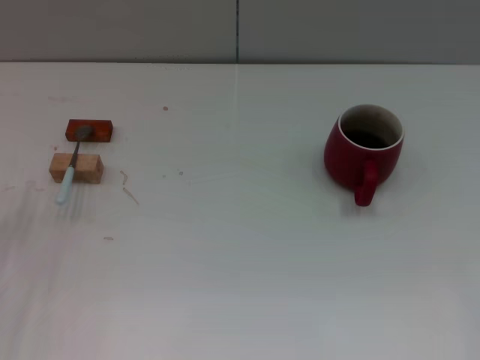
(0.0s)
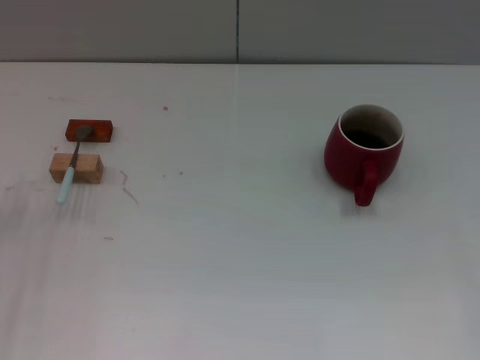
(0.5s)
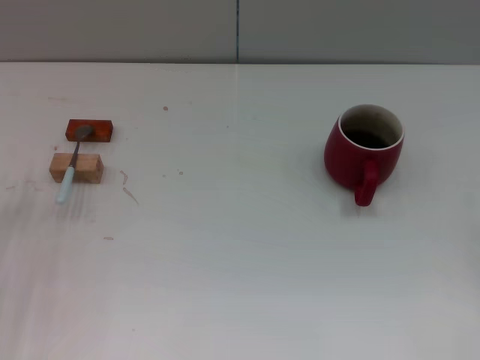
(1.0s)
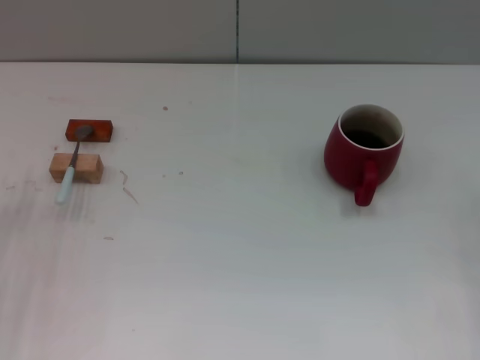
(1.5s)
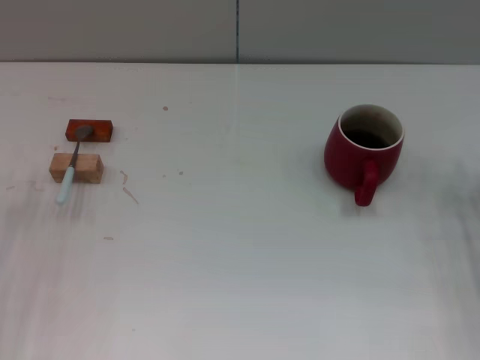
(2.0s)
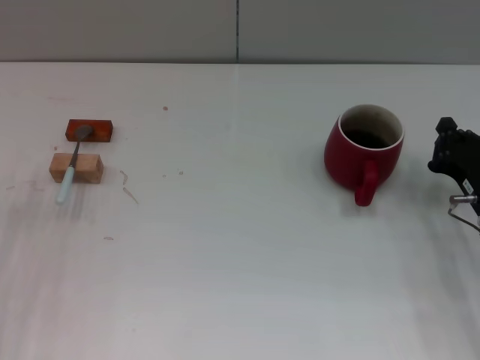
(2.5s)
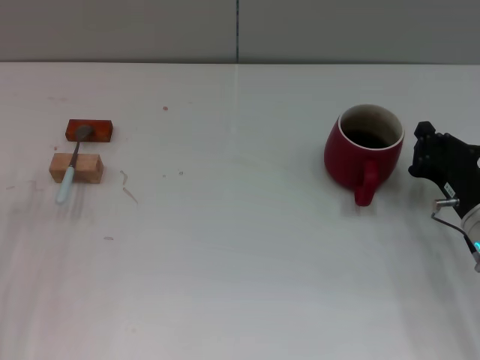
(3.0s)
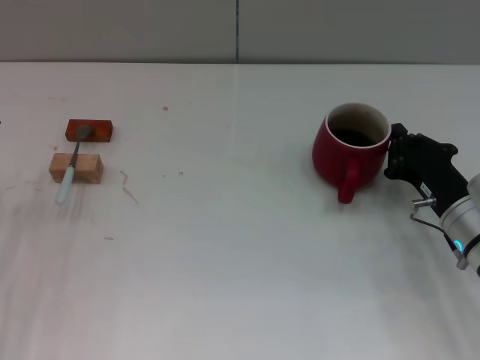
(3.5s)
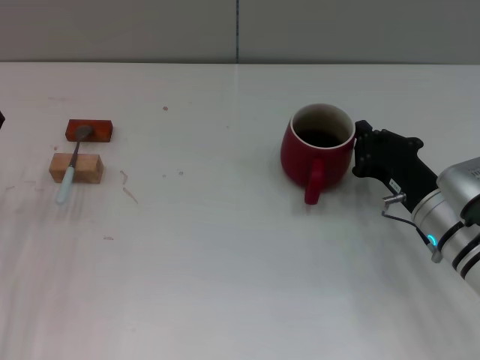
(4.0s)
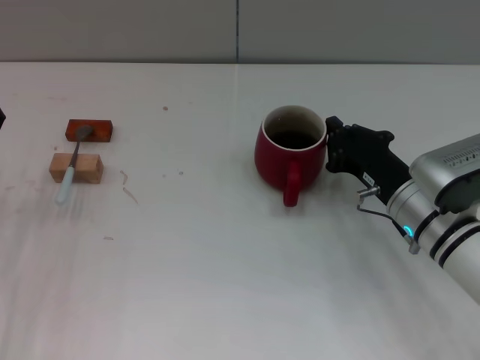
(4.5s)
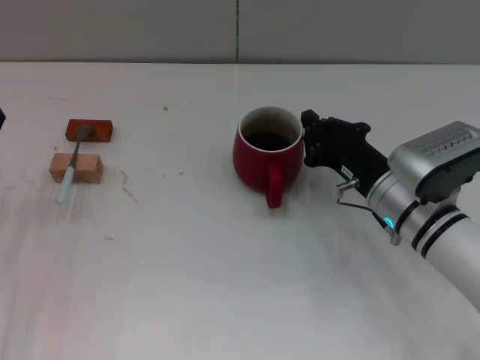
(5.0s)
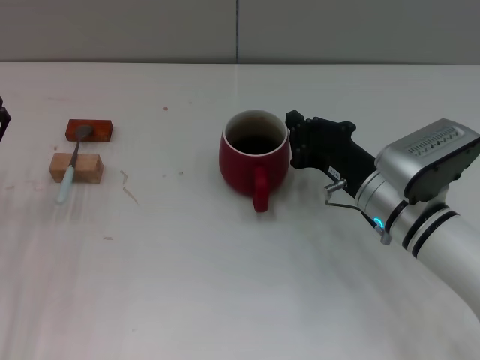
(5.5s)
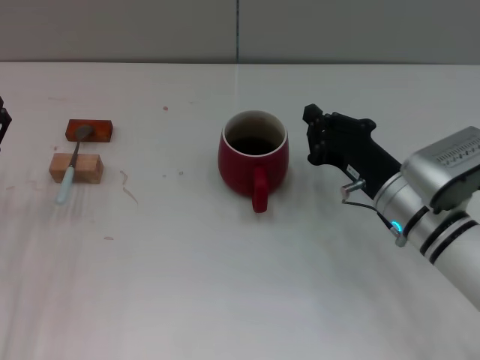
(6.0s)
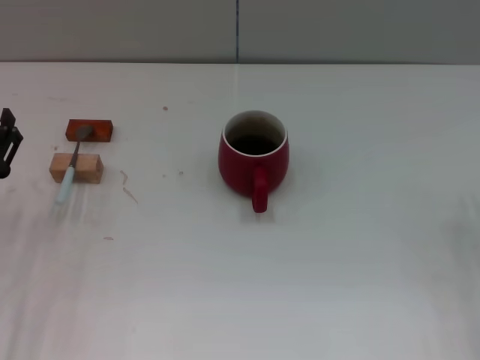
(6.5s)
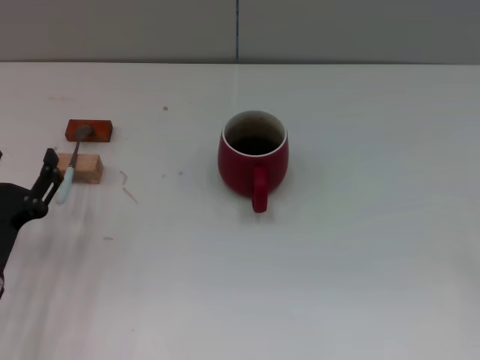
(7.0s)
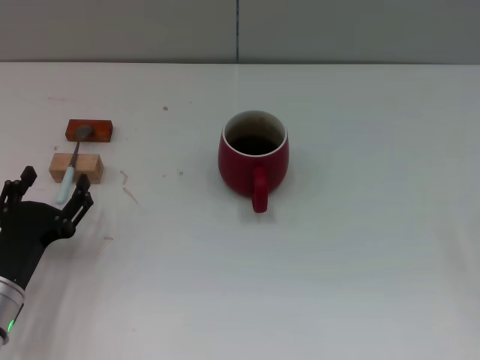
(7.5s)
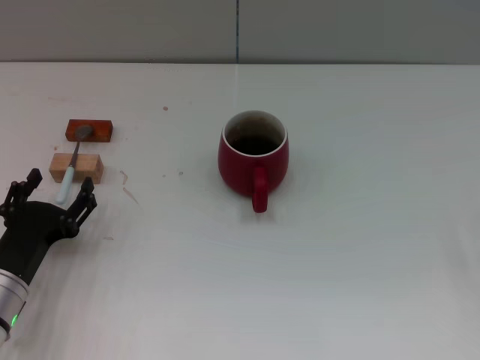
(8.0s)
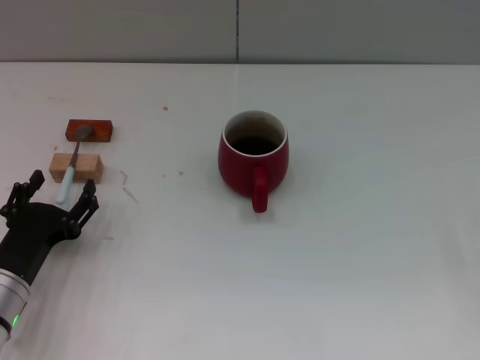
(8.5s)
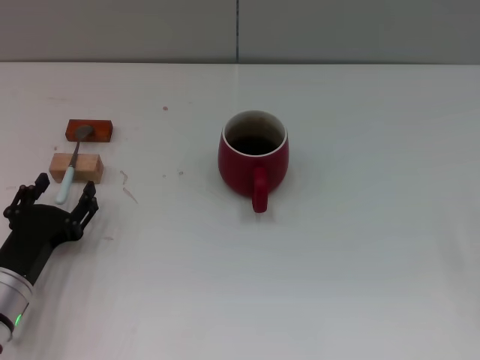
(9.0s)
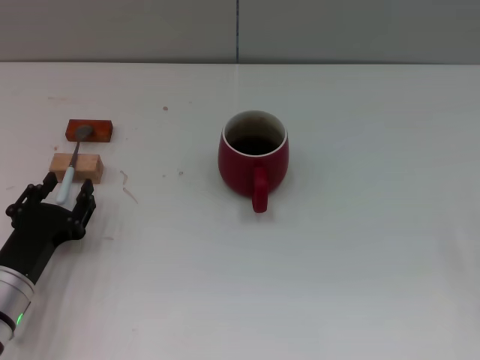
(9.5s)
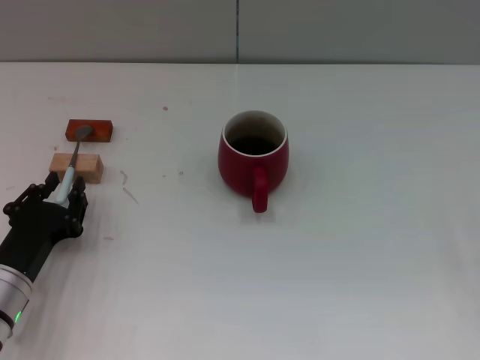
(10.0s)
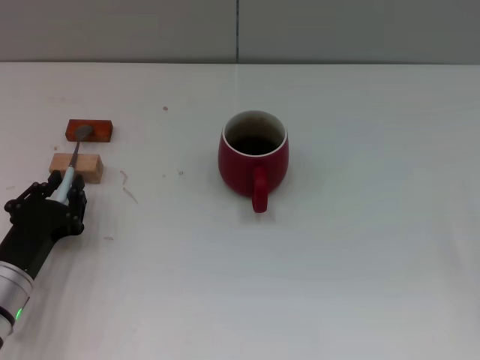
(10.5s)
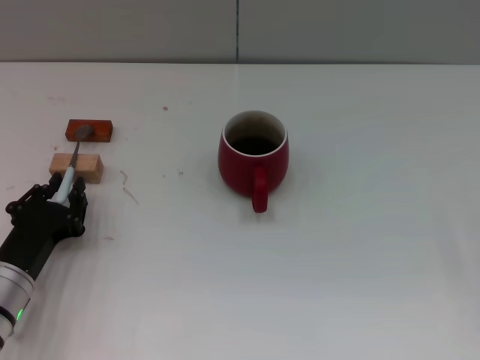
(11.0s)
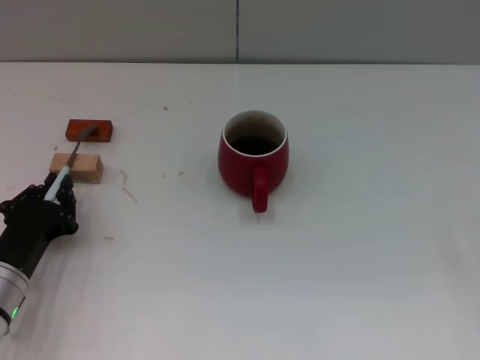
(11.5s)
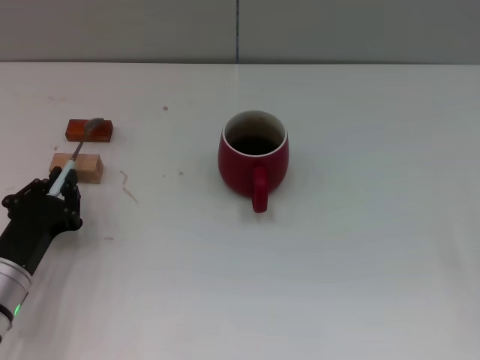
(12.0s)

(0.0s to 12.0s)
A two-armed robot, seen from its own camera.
Task of the whole recording: Move the red cup to the center, lift the blue spoon, stir it three times in the cup, and put the spoon into the cup.
Step, 0.0s - 6.0s: Move the cup with coffee to the center of view with the right gripper.
2.0s - 4.0s: The right gripper travels to the left by some 10 cm.
4.0s - 6.0s: There are only small adjustments of the grippers.
6.0s - 8.0s: The right gripper goes about 20 cm to the right and backward, and opens; the left gripper ends up about 5 cm from where it was.
8.0s - 10.0s: The left gripper closes its fingers.
10.0s - 12.0s: The left gripper closes its fingers.

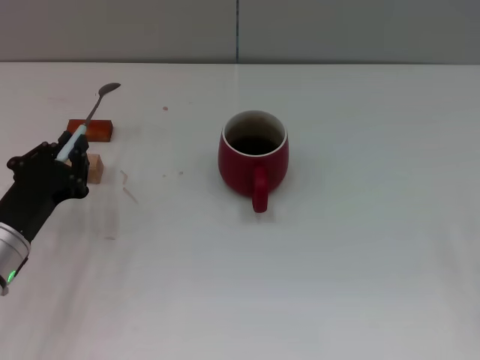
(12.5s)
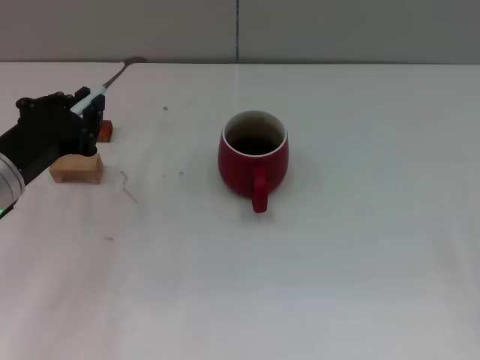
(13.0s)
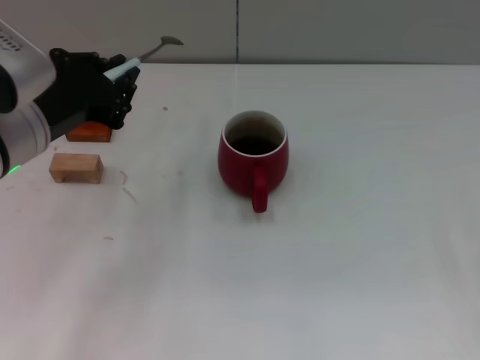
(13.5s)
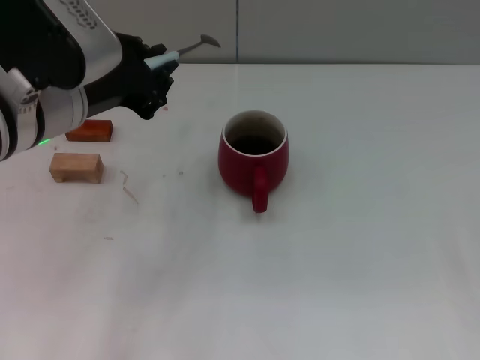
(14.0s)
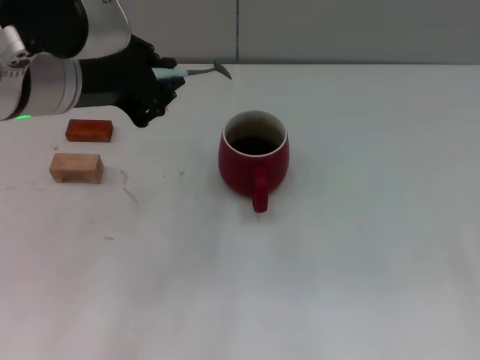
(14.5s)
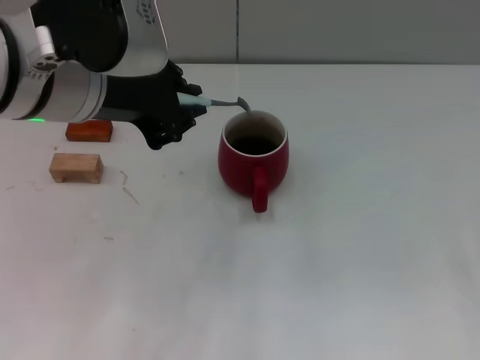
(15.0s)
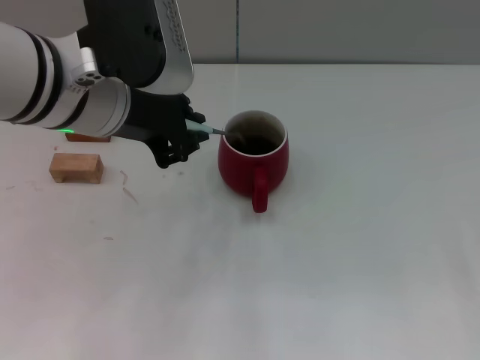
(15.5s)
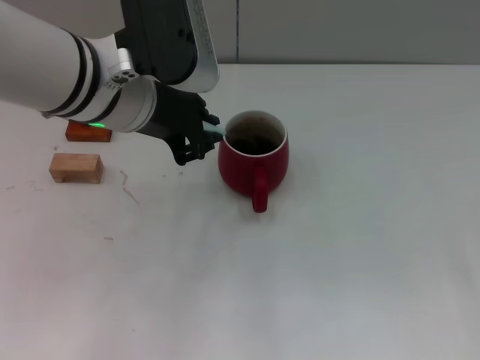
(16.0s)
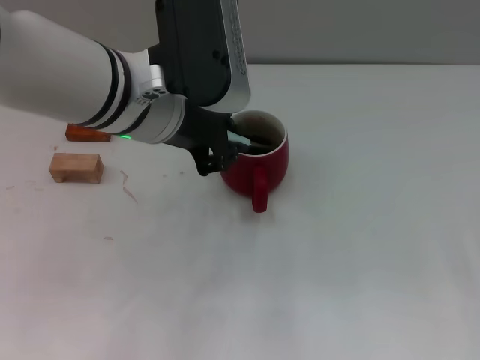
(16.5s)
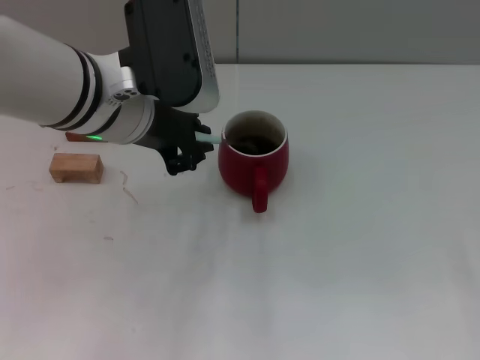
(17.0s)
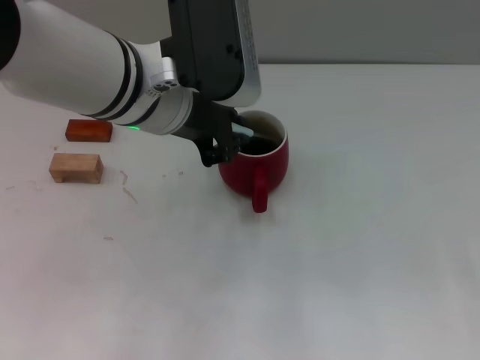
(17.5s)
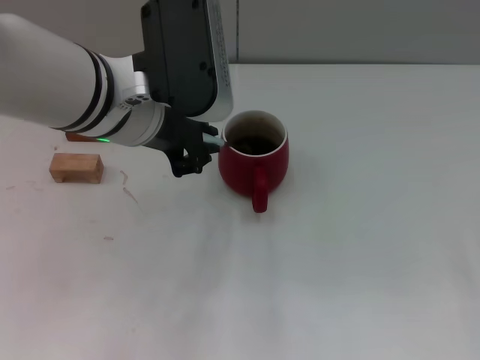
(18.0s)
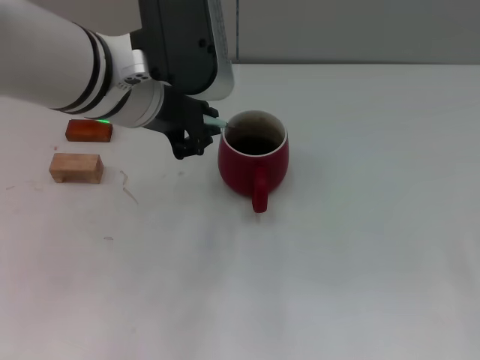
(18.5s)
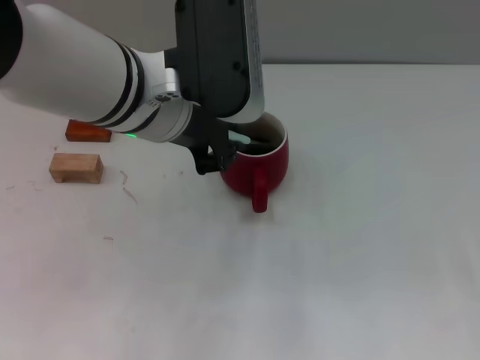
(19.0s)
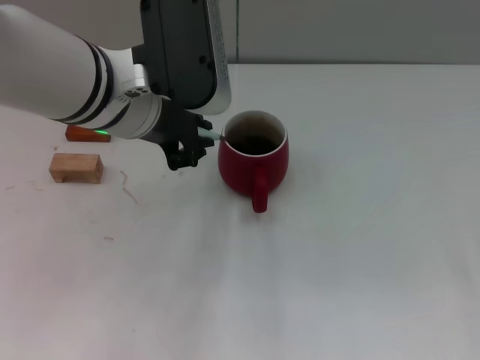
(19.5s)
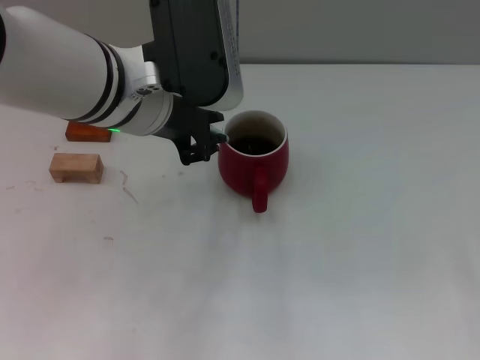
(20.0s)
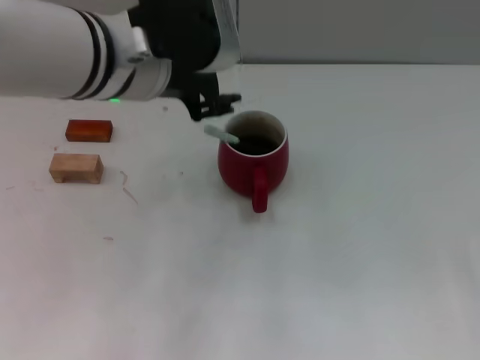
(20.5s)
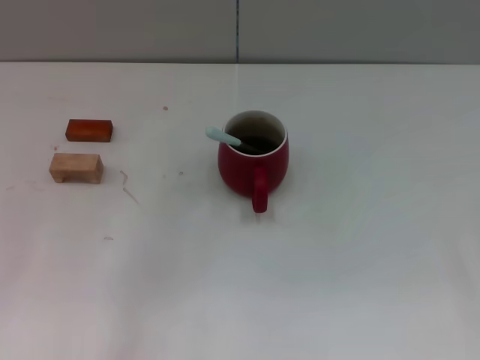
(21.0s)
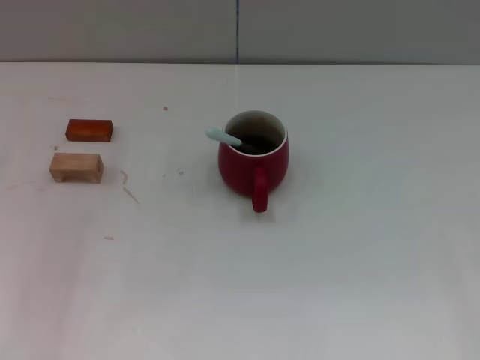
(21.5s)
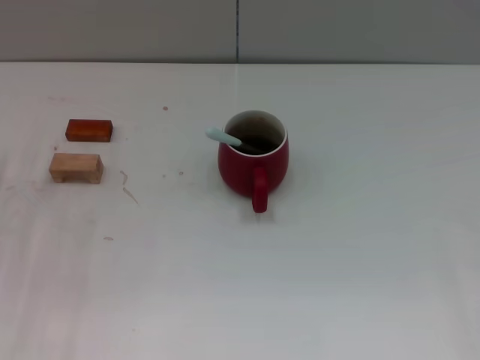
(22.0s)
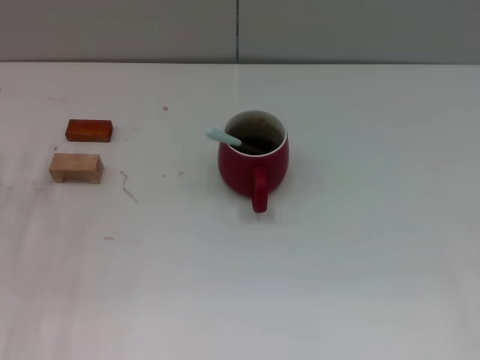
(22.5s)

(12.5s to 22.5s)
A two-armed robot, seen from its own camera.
Task of the whole recording: Move the red cup to the center, lift the blue spoon, stir it three times in the cup, and put the spoon into the cup.
Step, 12.5s - 20.0s: Stir the coffee in the cup with the left gripper.
12.5s - 14.5s: The left gripper goes approximately 25 cm upward and to the right.
14.5s - 16.5s: The left gripper moves to the right, about 5 cm.
16.5s - 18.5s: The grippers move only a little.
18.5s - 20.5s: The left gripper opens up.
20.5s - 22.5s: The left gripper goes about 25 cm downward and to the left, and opens.

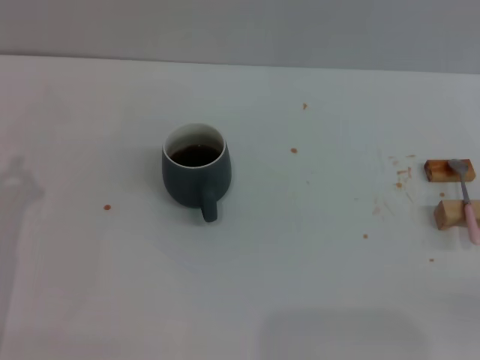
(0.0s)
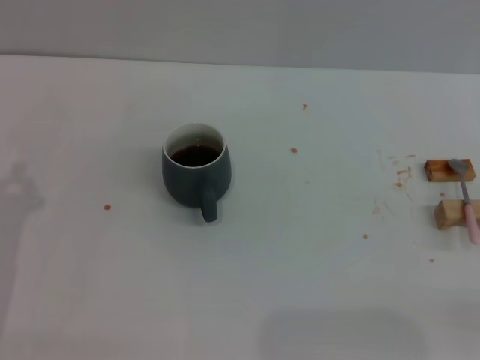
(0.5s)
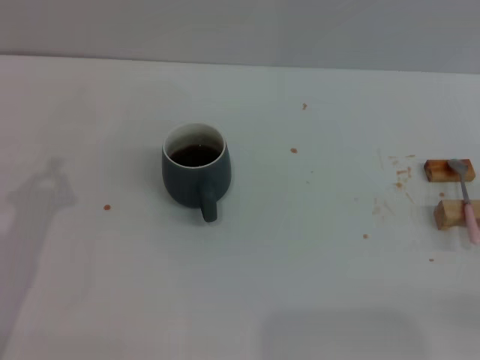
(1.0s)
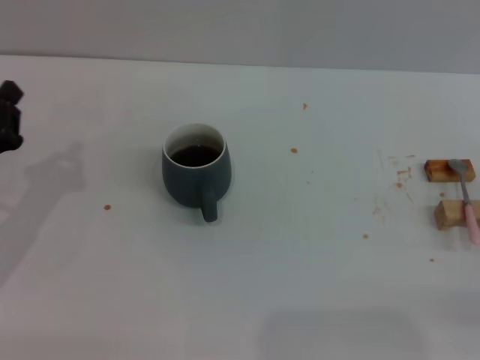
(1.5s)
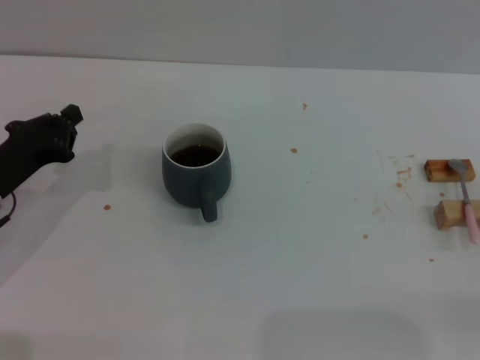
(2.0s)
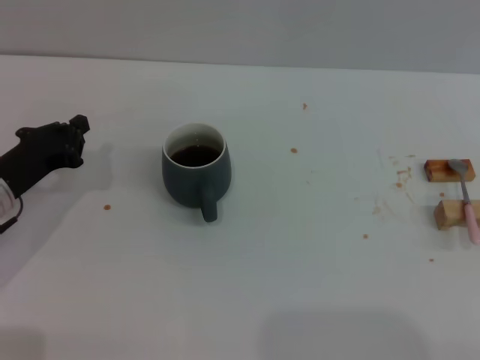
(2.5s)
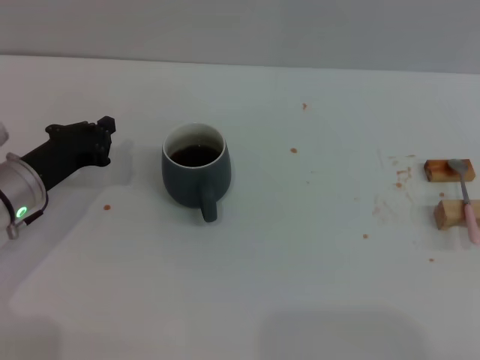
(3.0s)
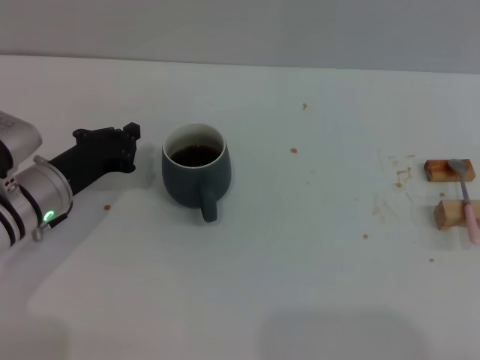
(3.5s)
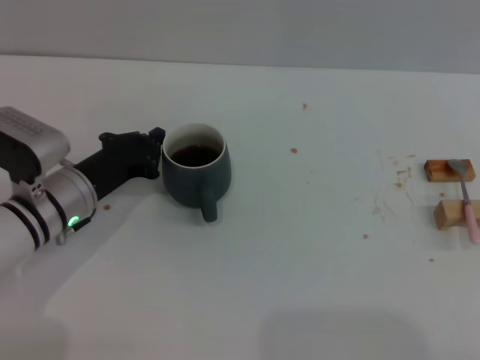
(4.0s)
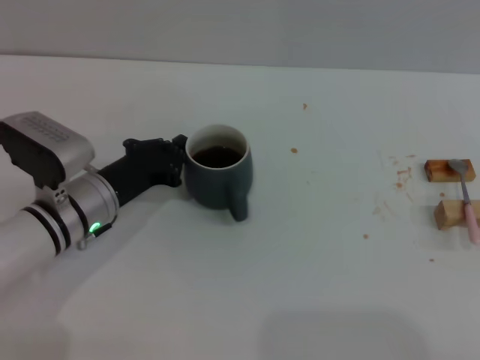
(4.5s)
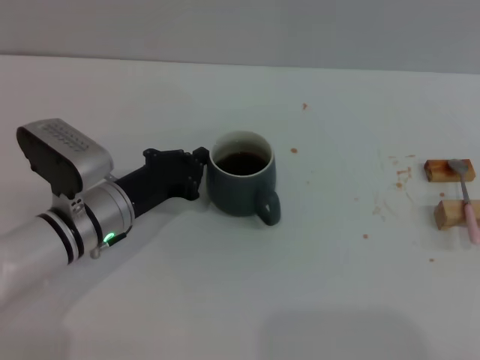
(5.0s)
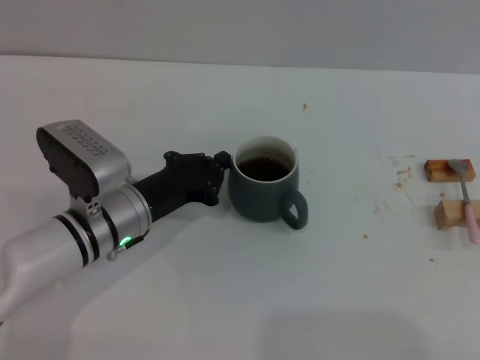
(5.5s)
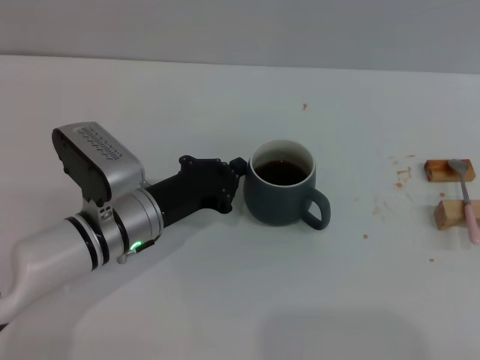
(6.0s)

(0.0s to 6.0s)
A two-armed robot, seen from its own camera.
Task of the whole recording: Move the grey cup to the center, lift the pink spoon, stir it three times in the cup, and put the spoon into the cup.
0.0s - 2.0s: The left gripper travels forward by some 5 cm, and closes its fingers.
2.0s - 4.0s: The left gripper goes some 10 cm to the right.
4.0s - 6.0s: The left gripper is displaced to the right by about 5 cm.
